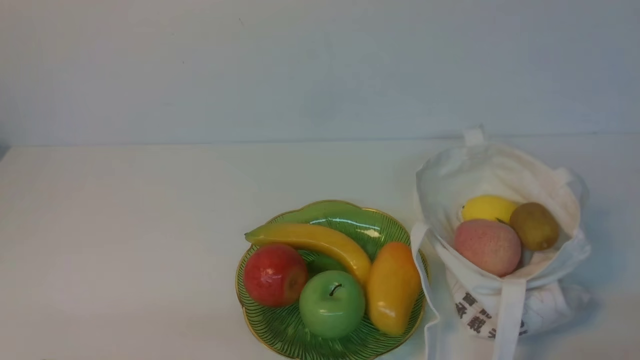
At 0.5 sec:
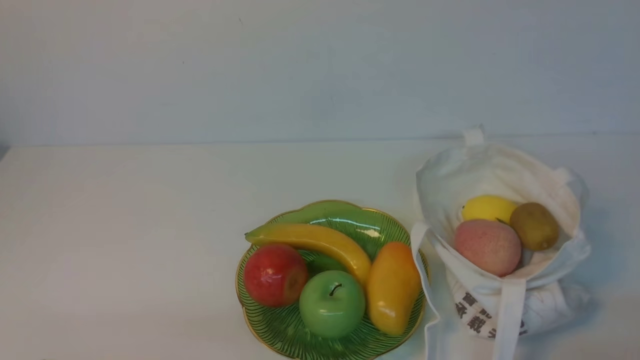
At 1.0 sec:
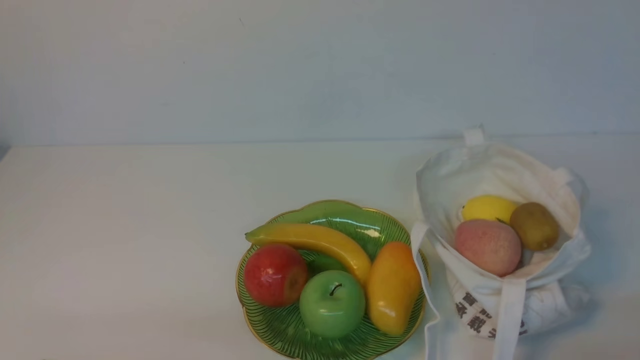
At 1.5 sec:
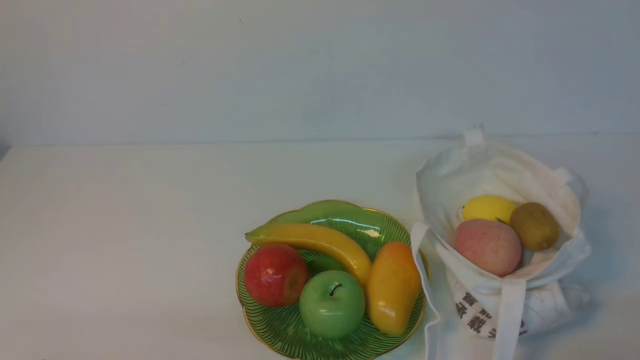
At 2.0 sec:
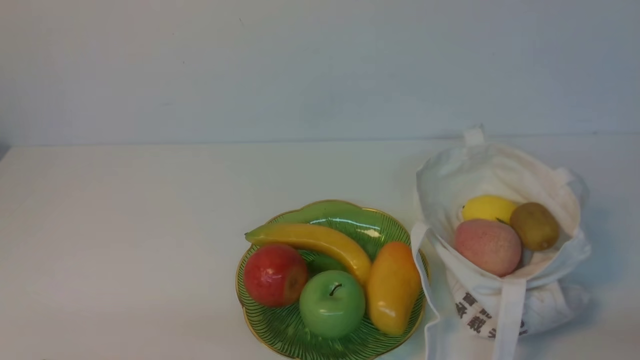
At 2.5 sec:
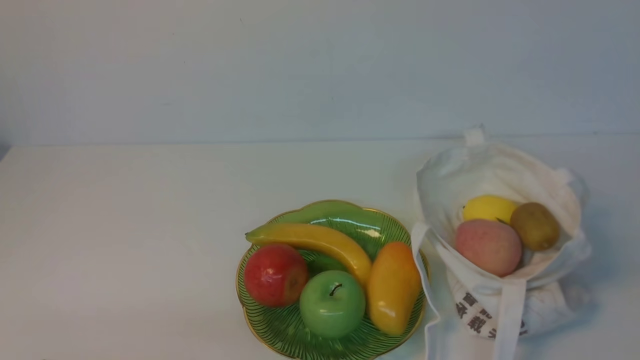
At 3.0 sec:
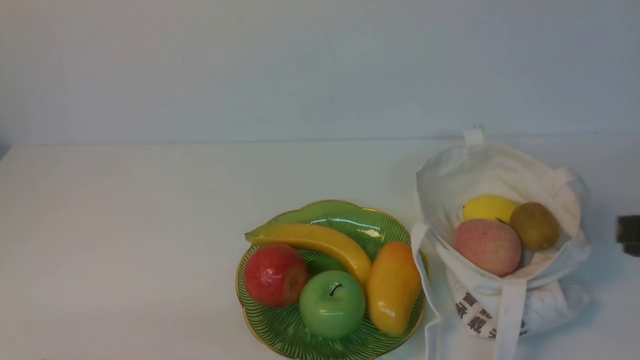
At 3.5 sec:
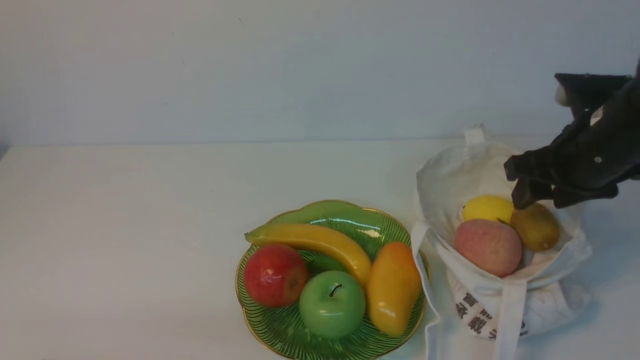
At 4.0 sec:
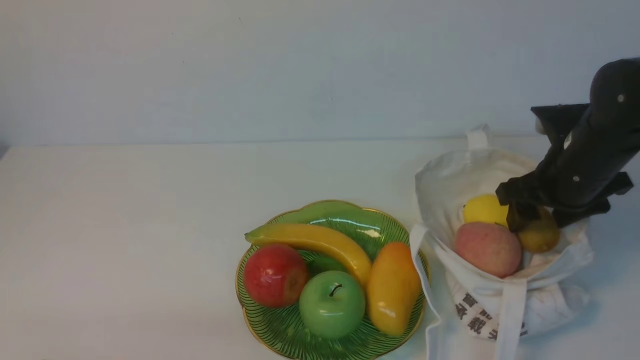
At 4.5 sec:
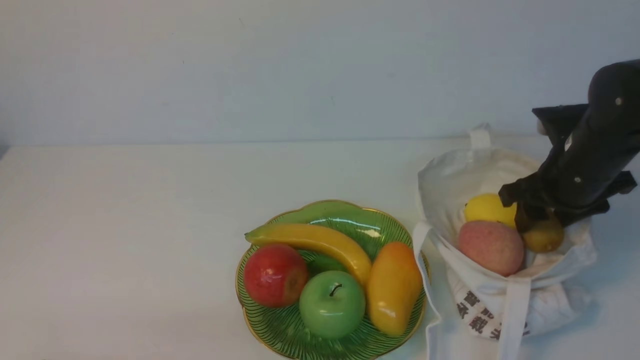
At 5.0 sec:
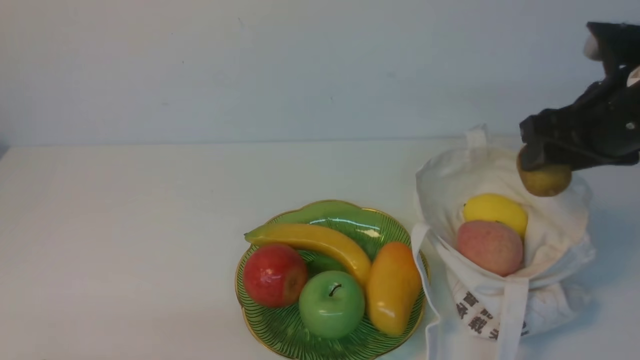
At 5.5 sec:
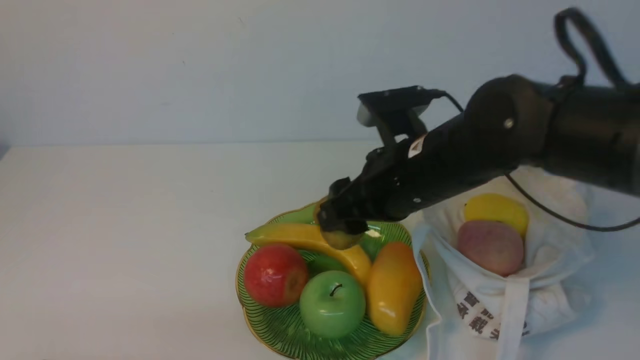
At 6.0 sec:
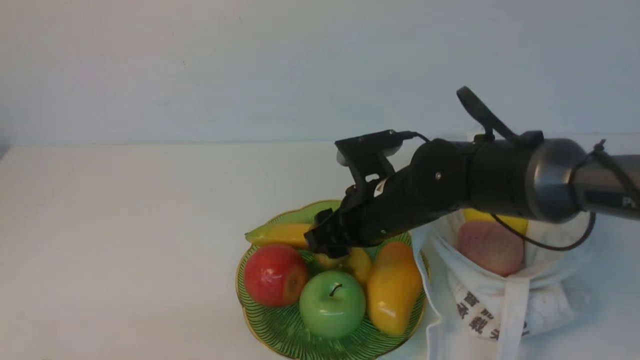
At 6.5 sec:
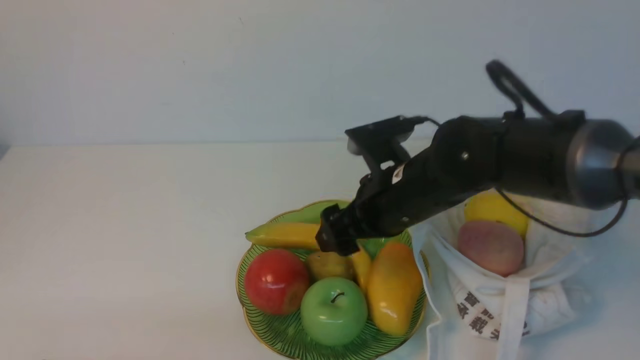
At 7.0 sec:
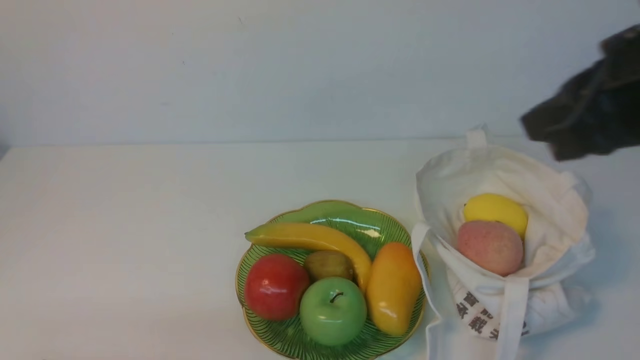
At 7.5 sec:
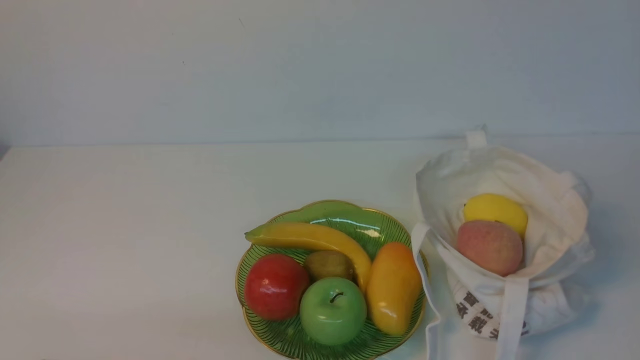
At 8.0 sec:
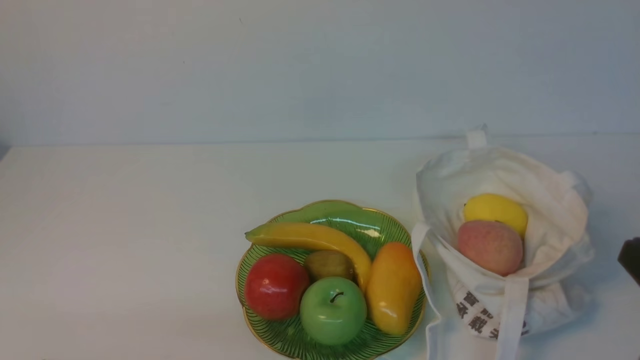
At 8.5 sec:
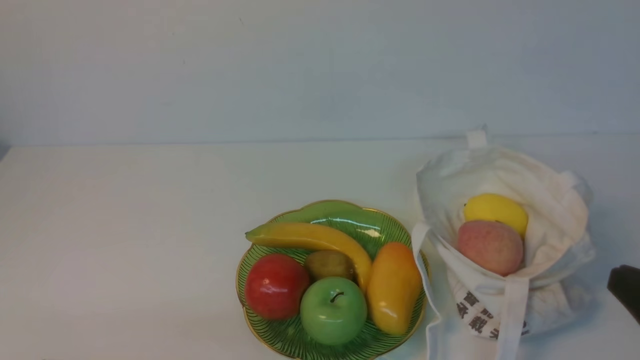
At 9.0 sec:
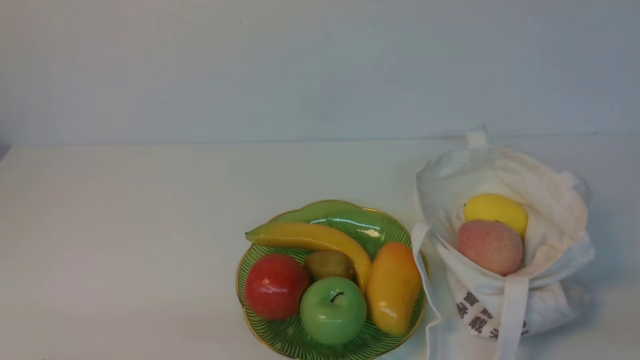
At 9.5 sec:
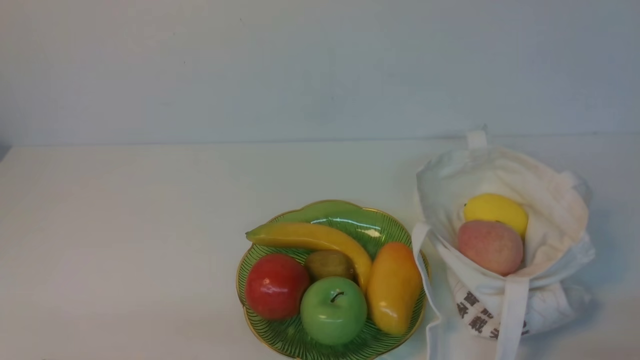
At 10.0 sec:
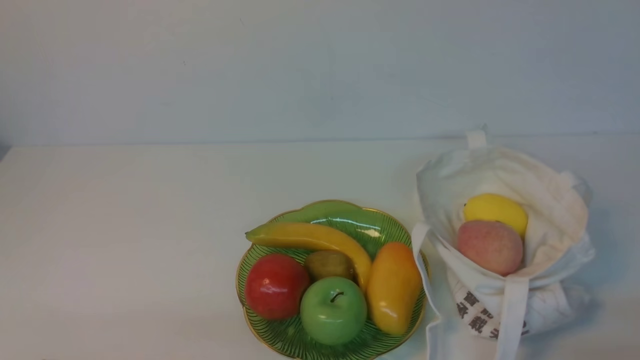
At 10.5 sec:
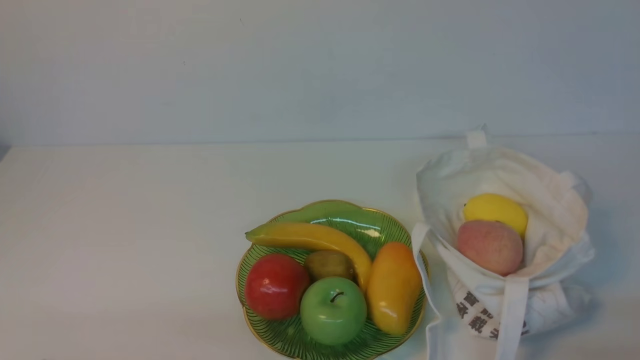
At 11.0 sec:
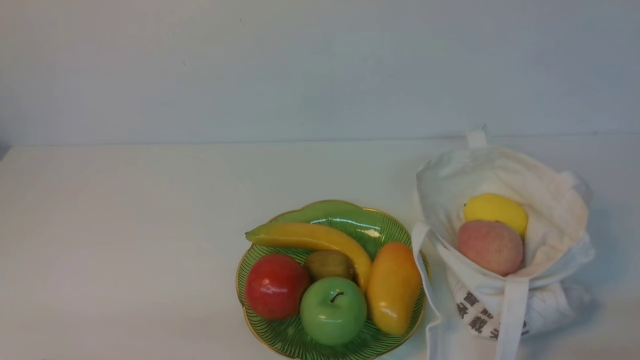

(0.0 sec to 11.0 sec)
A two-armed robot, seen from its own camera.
Step, 0.0 sec - 4.5 sec: use the right arm to grab a kiwi from the bag.
Step, 5.0 sec - 6.0 sec: use the right arm to put the kiwi into the empty plate on the left.
2.0 sec - 3.5 sec: The right gripper is displaced forward by approximately 25 cm, and opens its fingers.
3.5 sec - 5.5 sec: The right gripper travels to the left by approximately 15 cm.
5.5 sec - 7.5 sec: The right gripper is displaced backward and to the right by approximately 30 cm, and closes its fingers.
